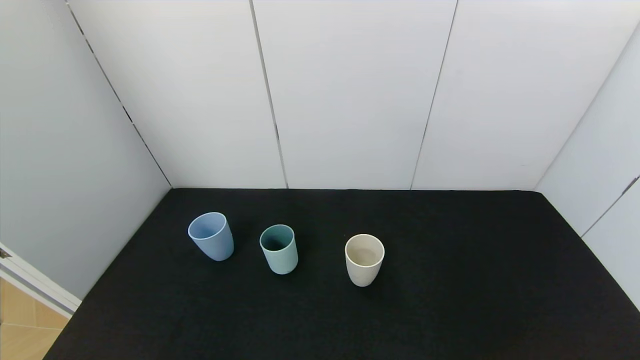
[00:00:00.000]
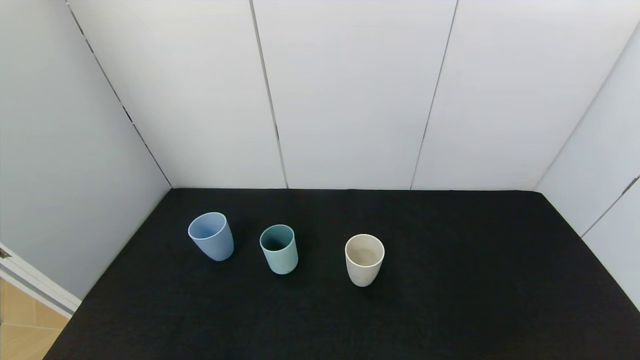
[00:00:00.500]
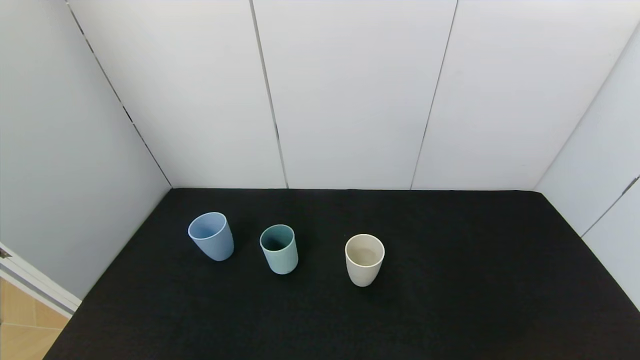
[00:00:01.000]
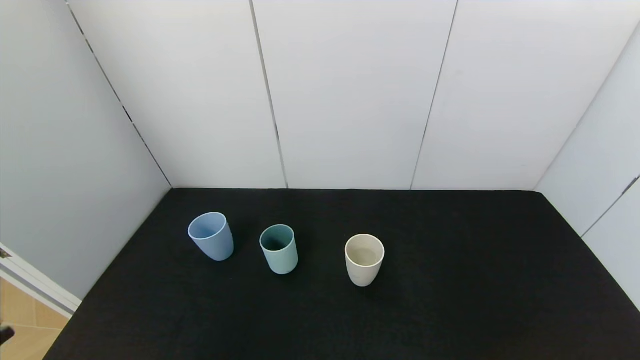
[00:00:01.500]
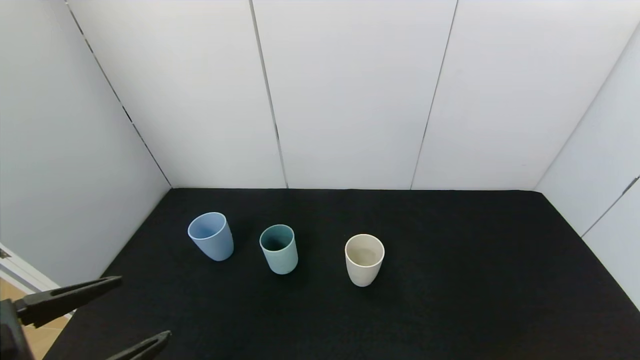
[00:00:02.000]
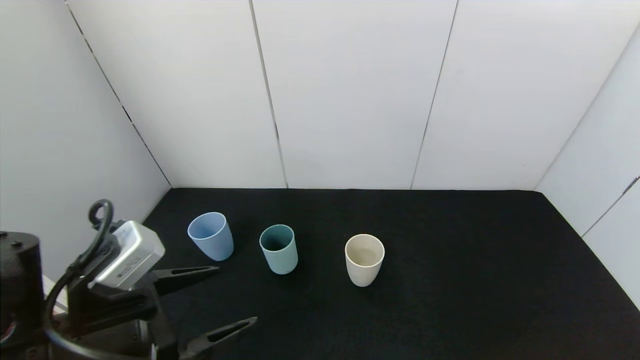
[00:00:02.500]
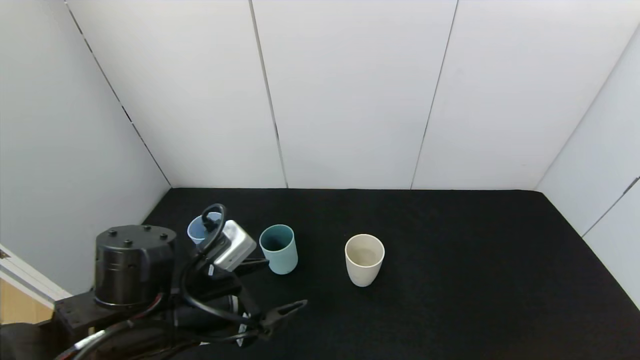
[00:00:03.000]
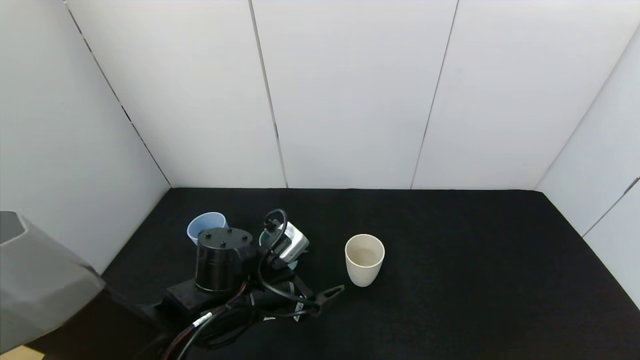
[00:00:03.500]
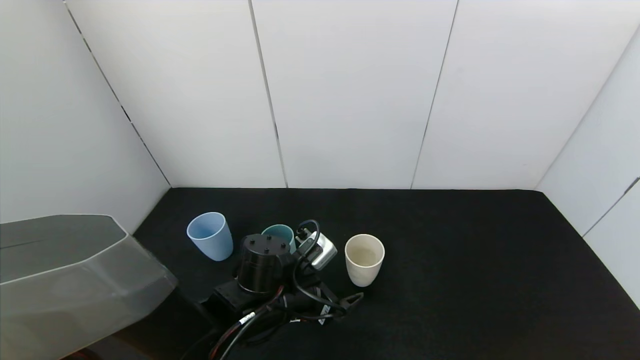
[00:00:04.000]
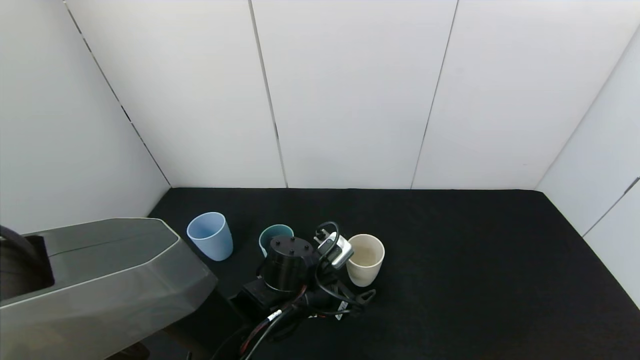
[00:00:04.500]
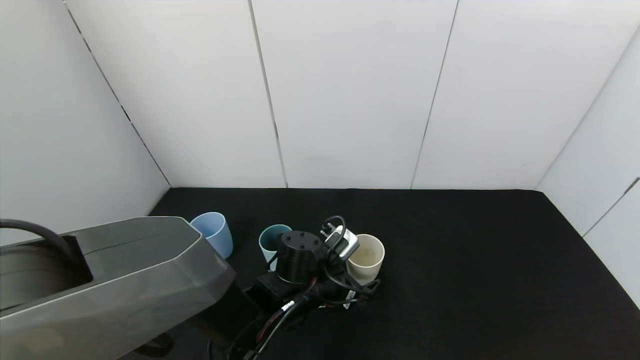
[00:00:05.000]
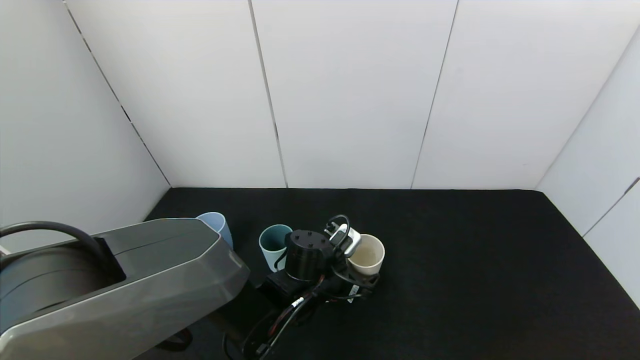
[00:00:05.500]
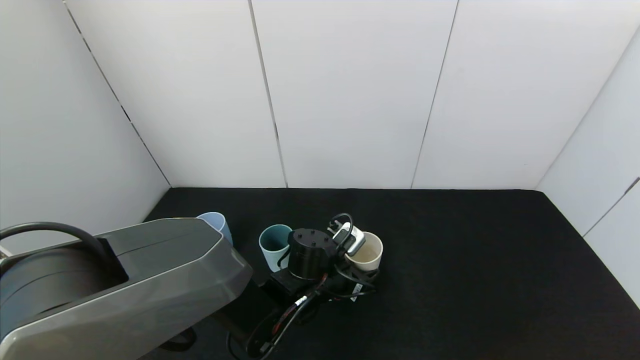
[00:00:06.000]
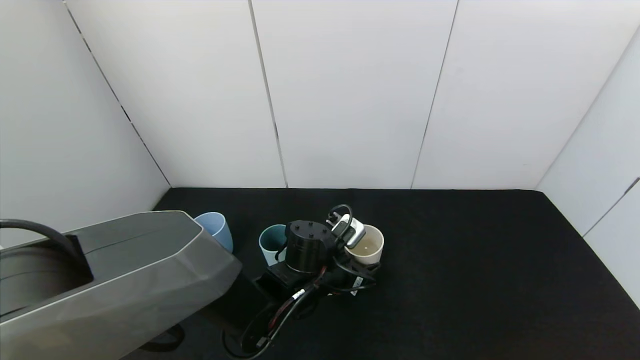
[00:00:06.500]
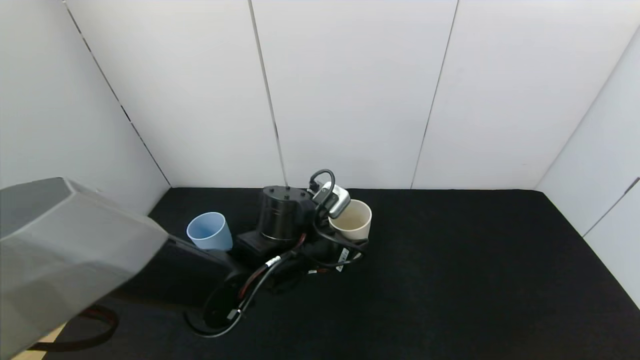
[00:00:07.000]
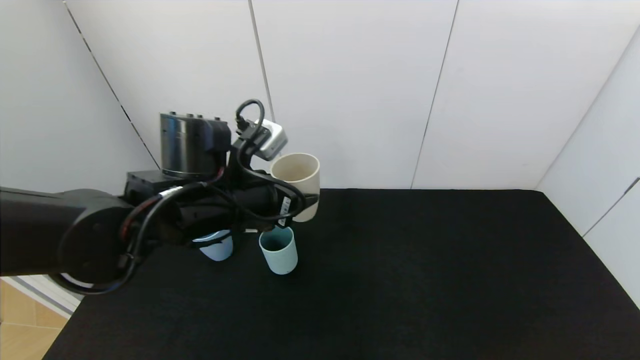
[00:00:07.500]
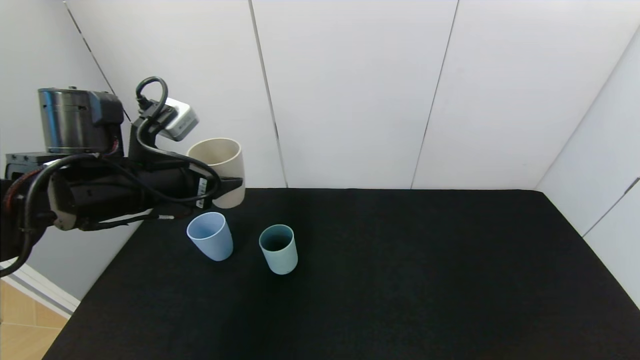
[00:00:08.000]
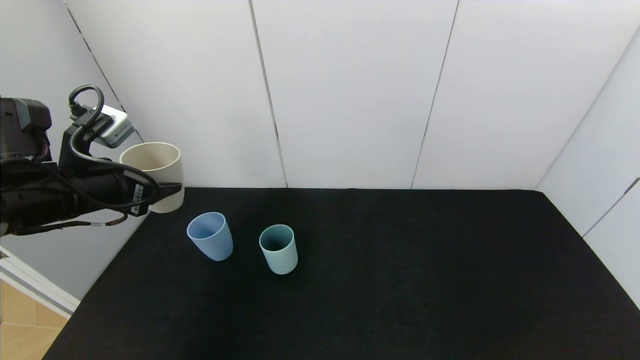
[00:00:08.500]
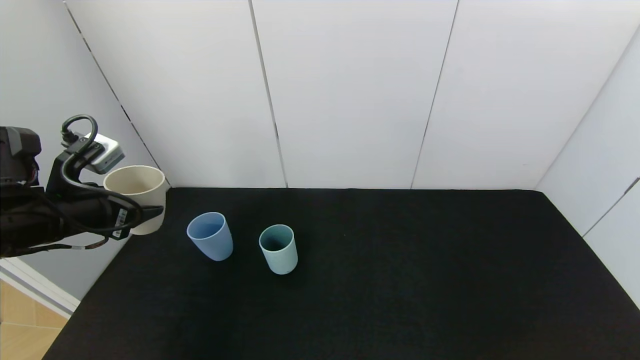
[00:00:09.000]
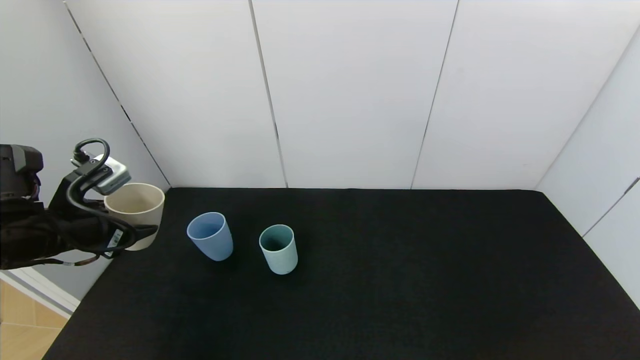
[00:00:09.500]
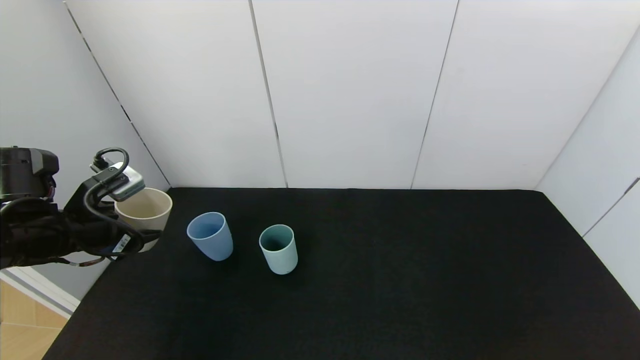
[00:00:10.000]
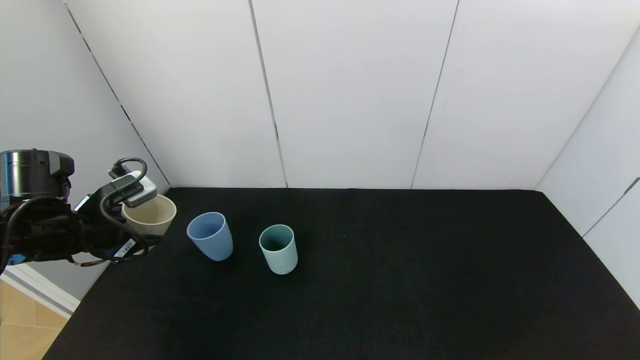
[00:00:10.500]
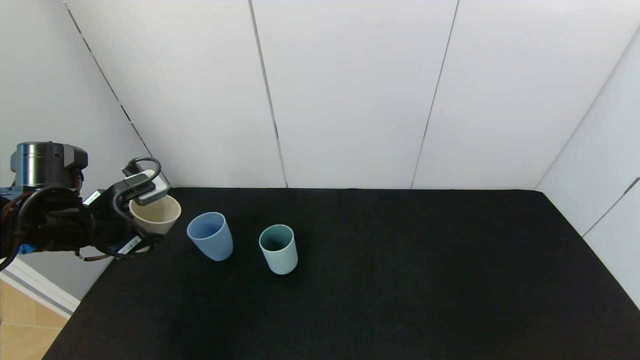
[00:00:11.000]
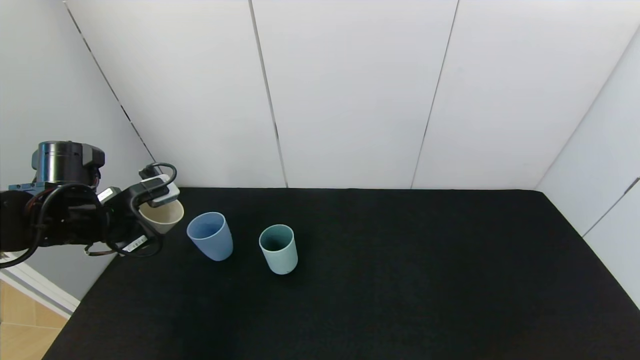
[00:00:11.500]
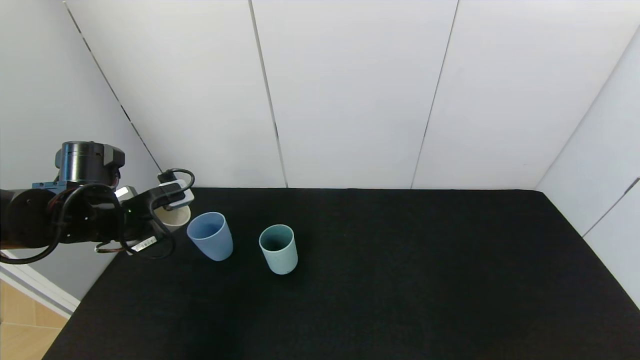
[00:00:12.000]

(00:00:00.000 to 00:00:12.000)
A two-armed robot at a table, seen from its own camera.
Task of the whole recording: use the gripper to pour the water into the other two cups on black table.
Step, 00:00:00.000 - 00:00:06.500: Pick up the gray plastic cup with left gripper.
00:00:00.000 - 00:00:02.000: The left gripper goes approximately 15 cm upward and forward.
00:00:02.000 - 00:00:04.000: The left gripper goes roughly 30 cm forward, to the right and downward.
00:00:04.000 - 00:00:06.000: The left gripper shifts approximately 5 cm to the right, and closes up.
00:00:06.000 - 00:00:08.000: The left gripper heads to the left and upward, covering approximately 30 cm.
00:00:08.000 - 00:00:10.000: The left gripper is displaced to the left and downward by some 10 cm.
00:00:10.000 - 00:00:12.000: The left gripper travels forward by roughly 5 cm.

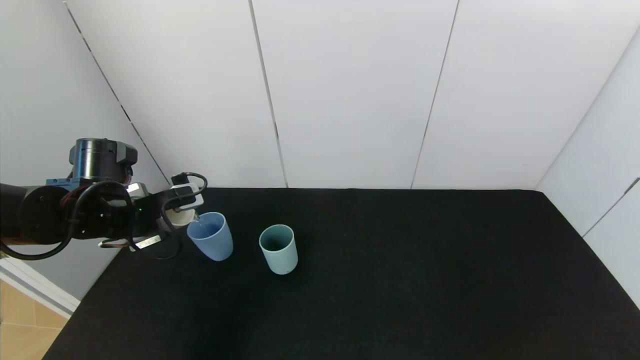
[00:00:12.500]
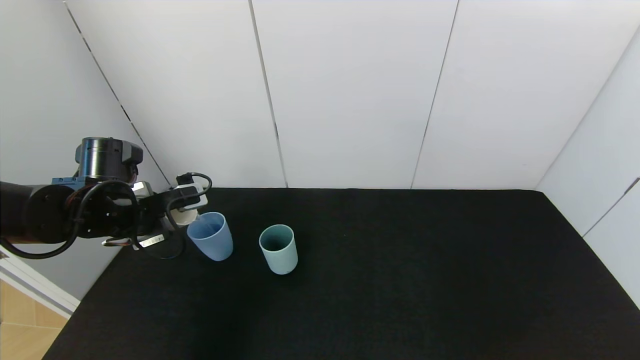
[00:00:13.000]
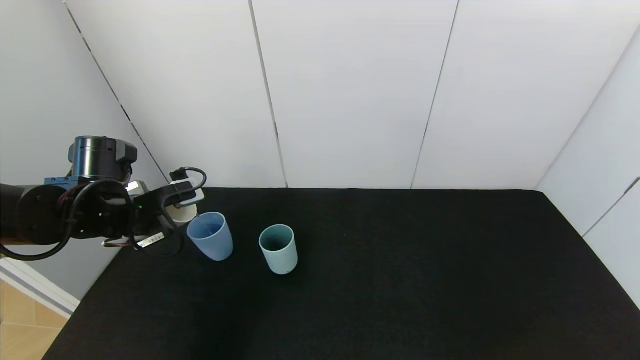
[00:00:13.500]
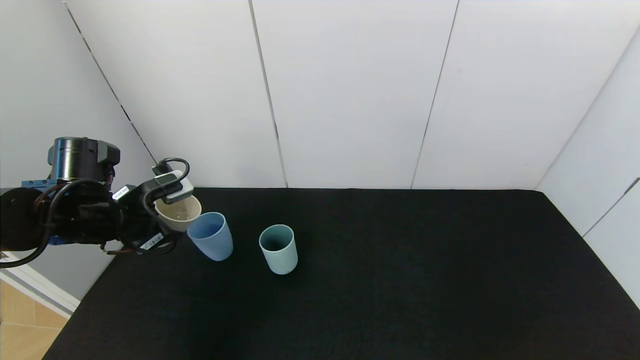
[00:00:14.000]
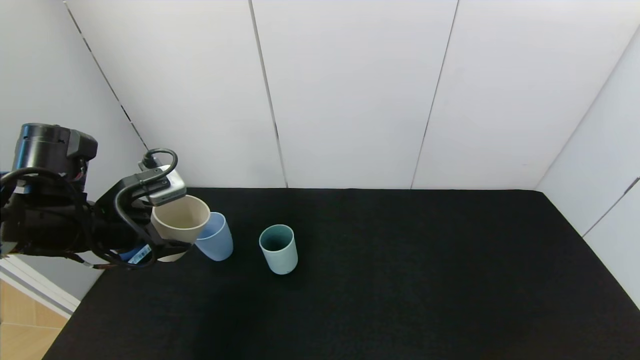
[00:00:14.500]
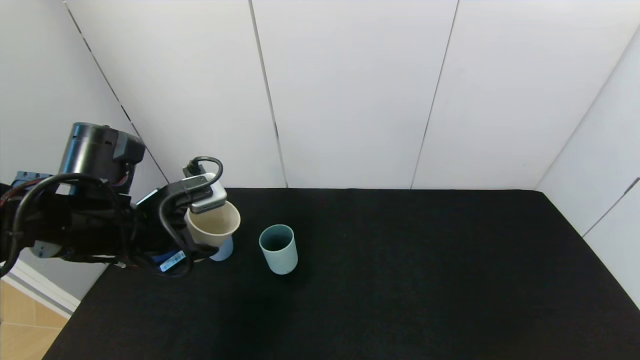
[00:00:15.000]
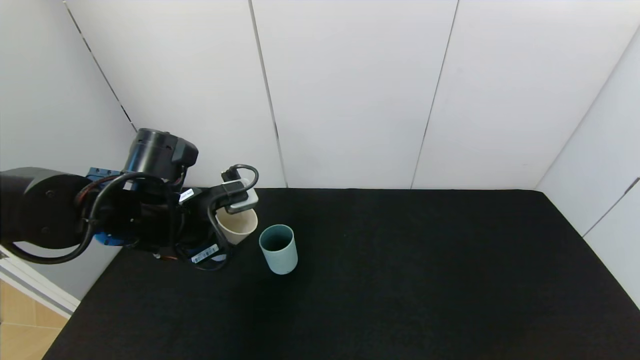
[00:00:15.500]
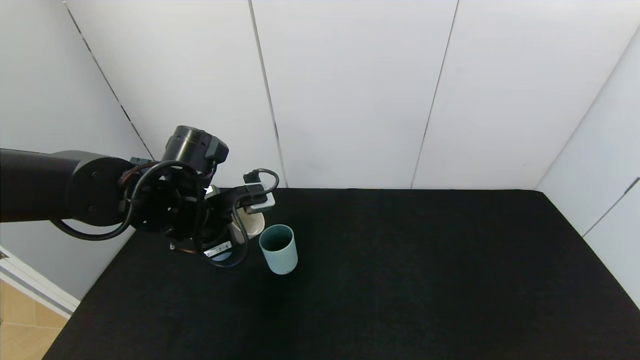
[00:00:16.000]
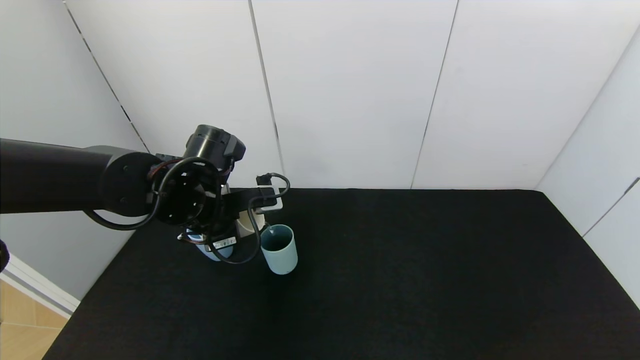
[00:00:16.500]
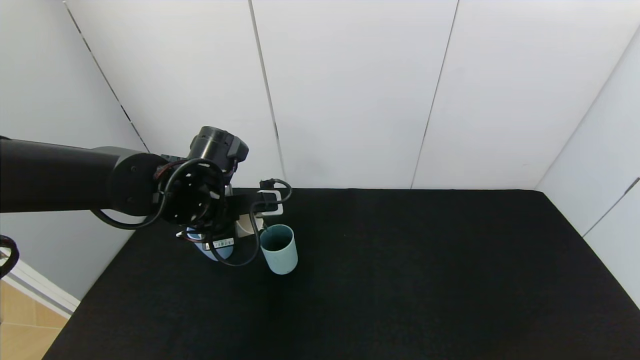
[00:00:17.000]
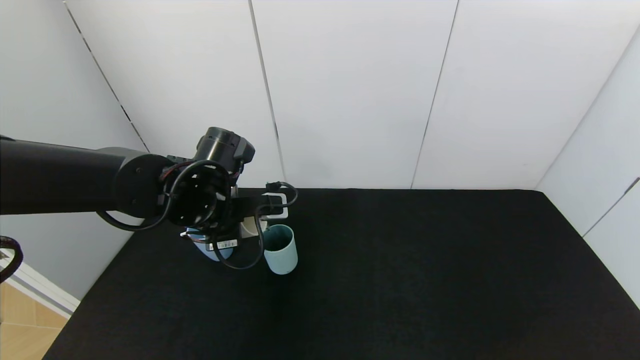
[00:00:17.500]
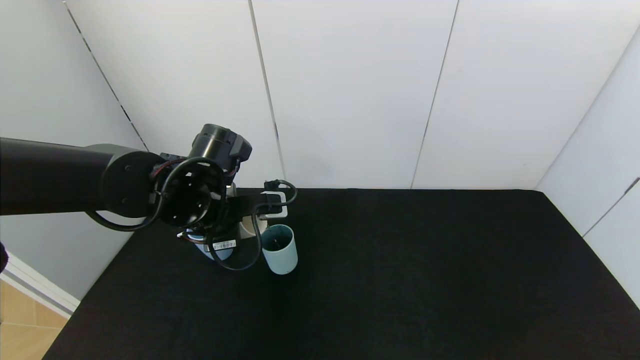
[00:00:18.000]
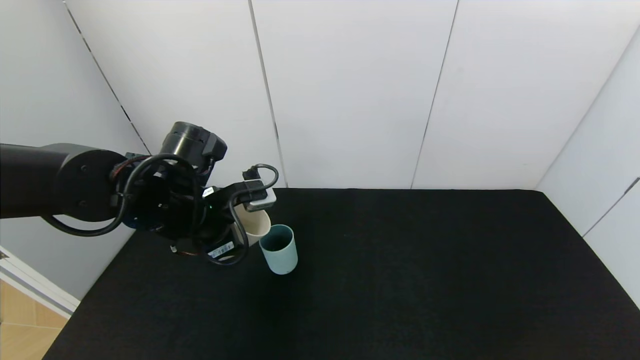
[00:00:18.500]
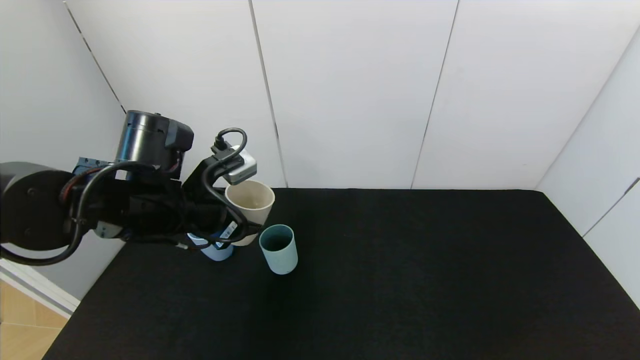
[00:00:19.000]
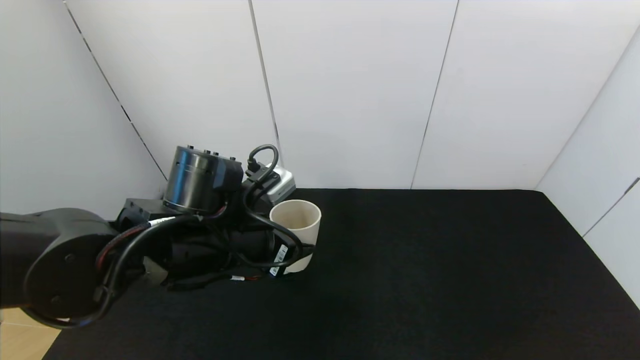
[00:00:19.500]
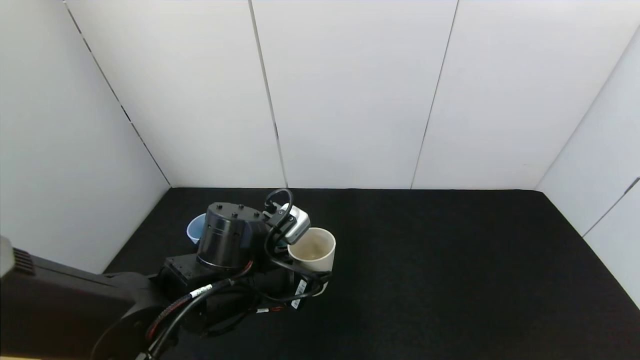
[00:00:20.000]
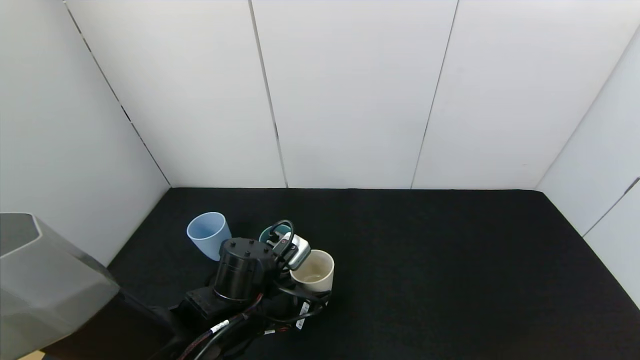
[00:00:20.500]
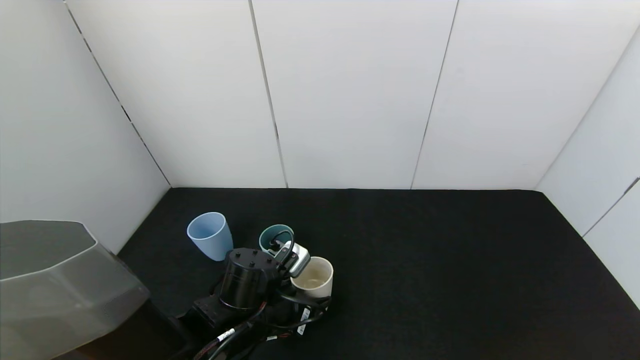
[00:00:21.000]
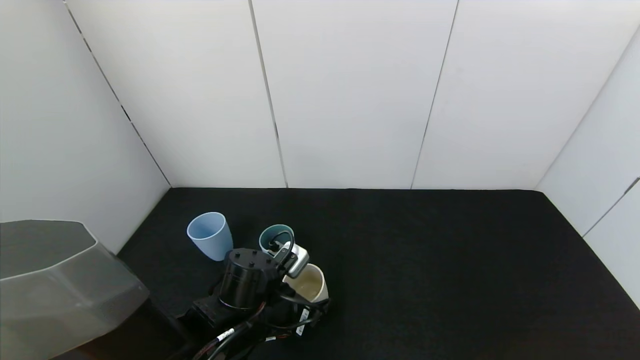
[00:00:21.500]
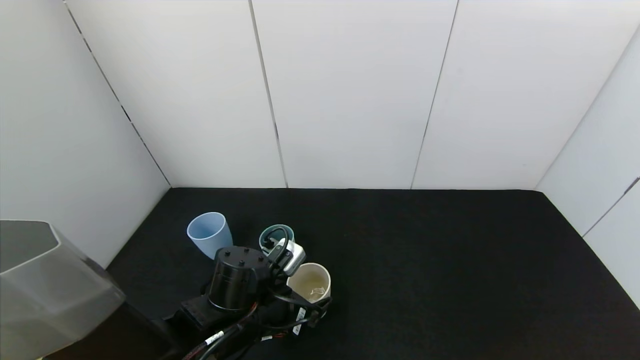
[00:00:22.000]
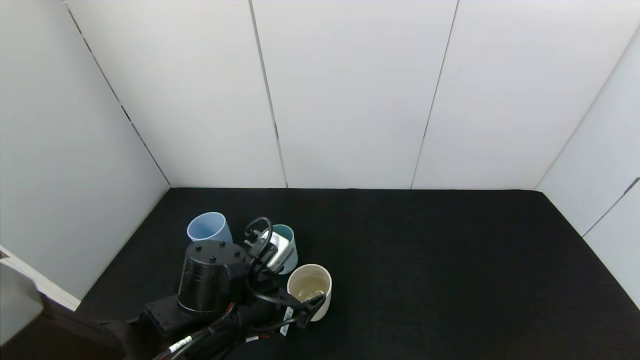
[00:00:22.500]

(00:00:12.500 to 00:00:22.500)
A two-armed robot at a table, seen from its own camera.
Task of the whole recording: use the gripper to pour the water into the other two cups on black table.
Step, 00:00:14.500 - 00:00:18.500: Pour water into the green plastic cup with left gripper.
Step, 00:00:19.000 - 00:00:22.000: Place the gray plastic cup on the table with left gripper.
00:00:12.500 - 00:00:14.500: The left gripper is displaced backward by about 5 cm.
00:00:14.500 - 00:00:16.500: The left gripper is displaced to the right and forward by about 10 cm.
00:00:16.500 - 00:00:18.500: The grippers stay close to where they were, moving slightly.
00:00:18.500 - 00:00:20.500: The left gripper moves downward, to the right and backward, about 15 cm.
00:00:20.500 - 00:00:22.500: The left gripper opens.
